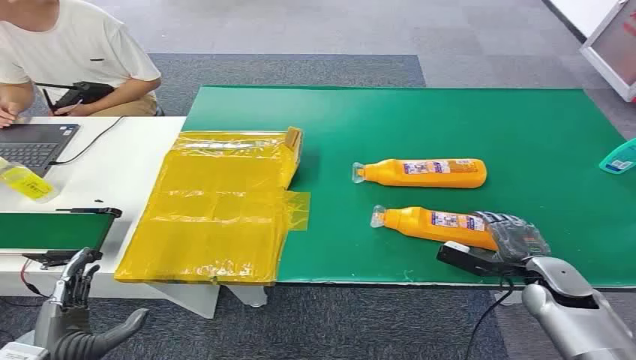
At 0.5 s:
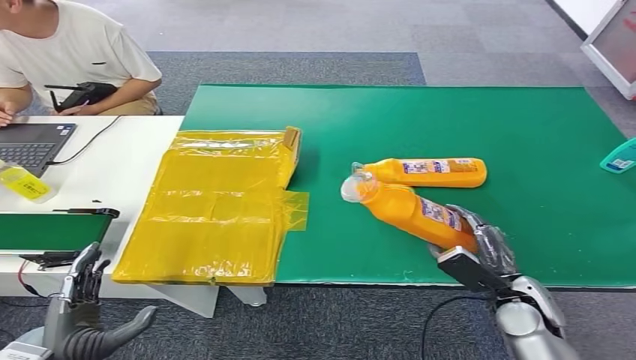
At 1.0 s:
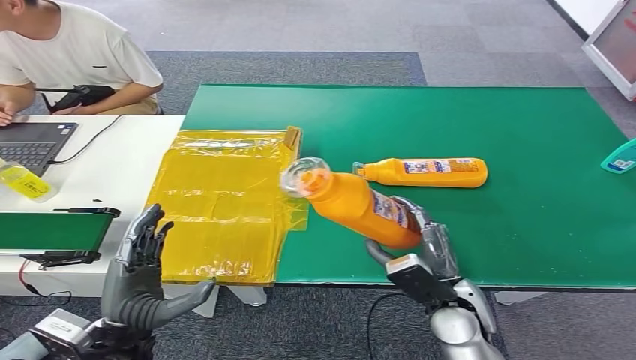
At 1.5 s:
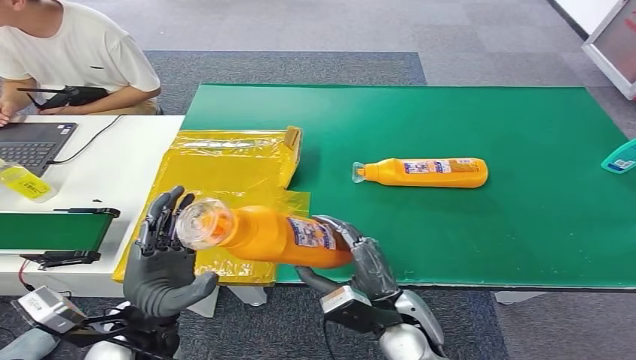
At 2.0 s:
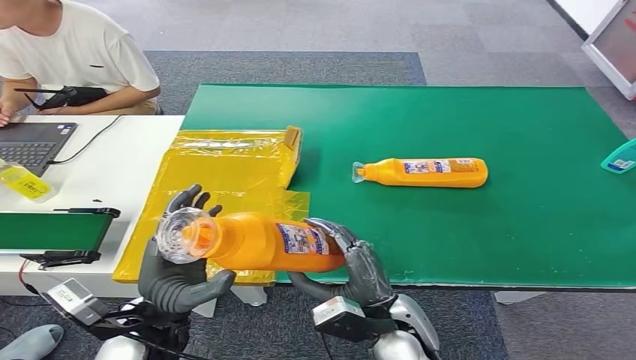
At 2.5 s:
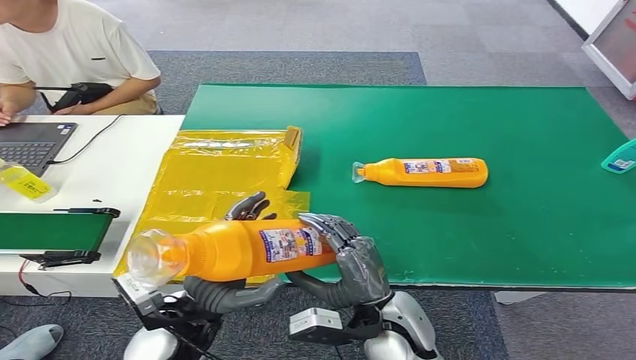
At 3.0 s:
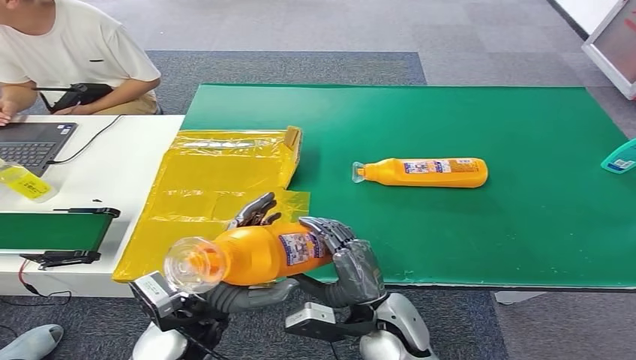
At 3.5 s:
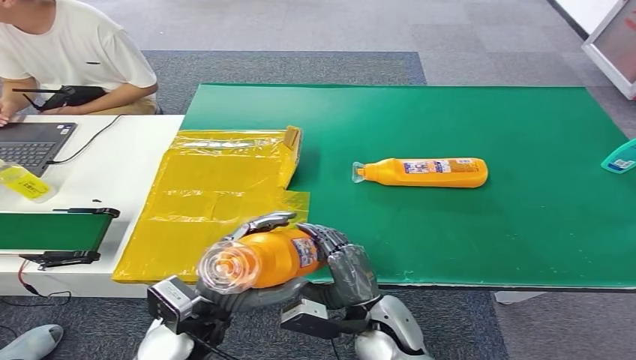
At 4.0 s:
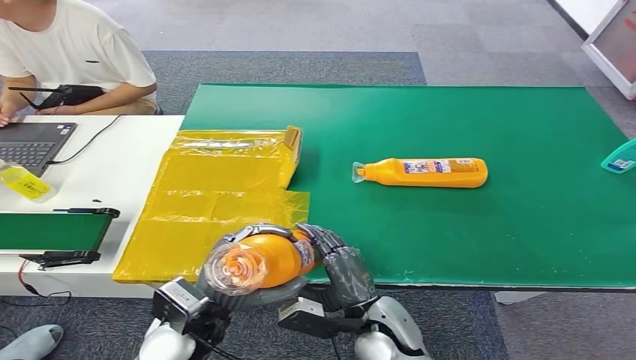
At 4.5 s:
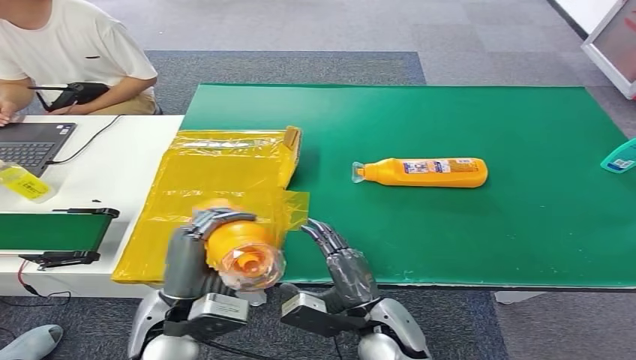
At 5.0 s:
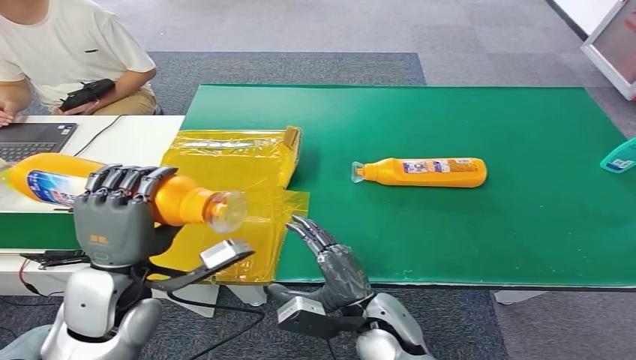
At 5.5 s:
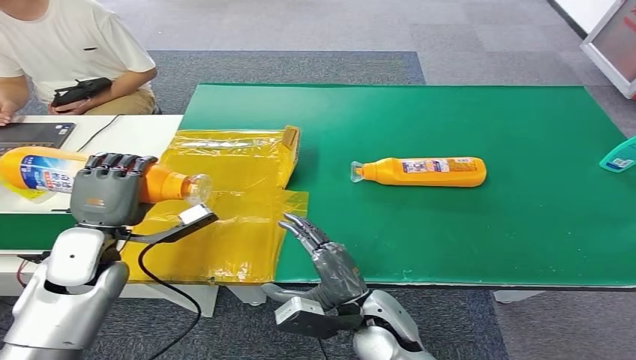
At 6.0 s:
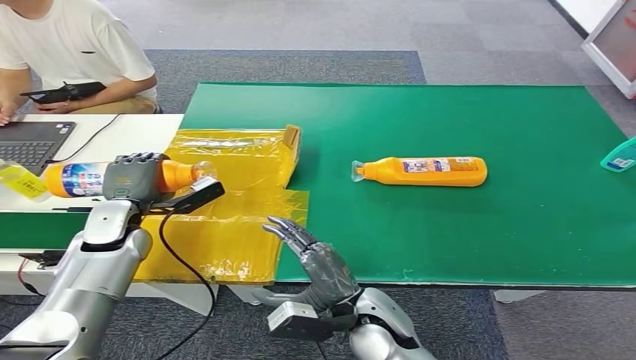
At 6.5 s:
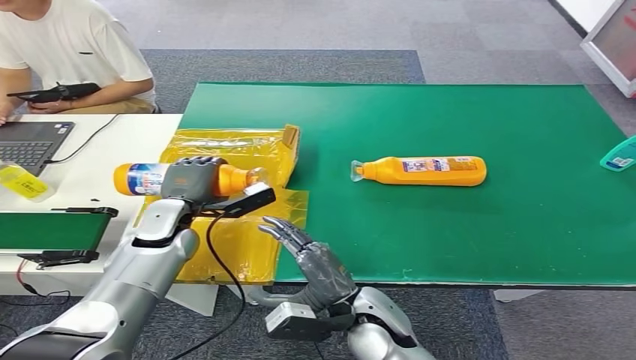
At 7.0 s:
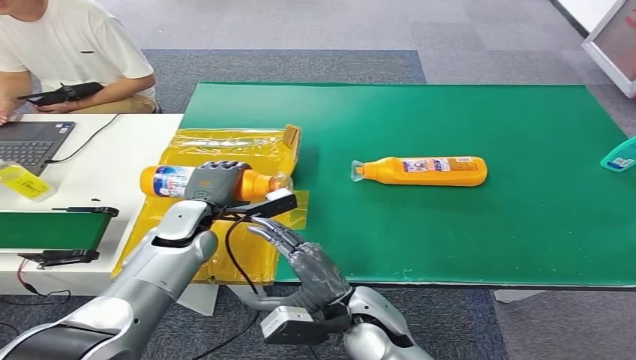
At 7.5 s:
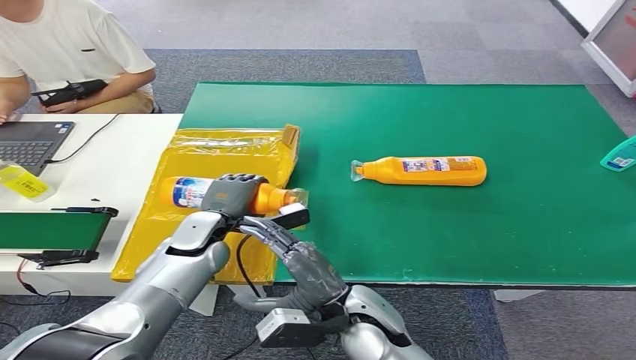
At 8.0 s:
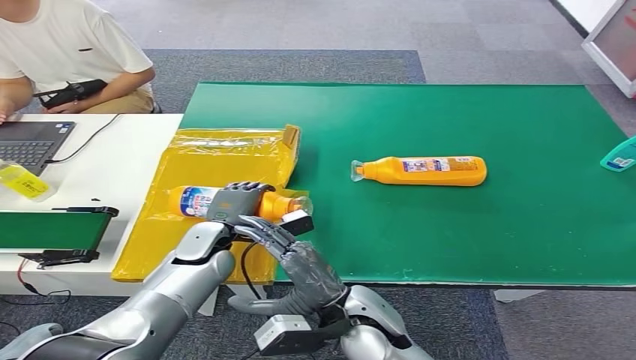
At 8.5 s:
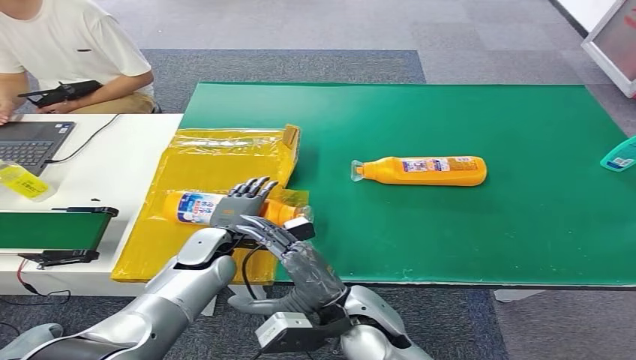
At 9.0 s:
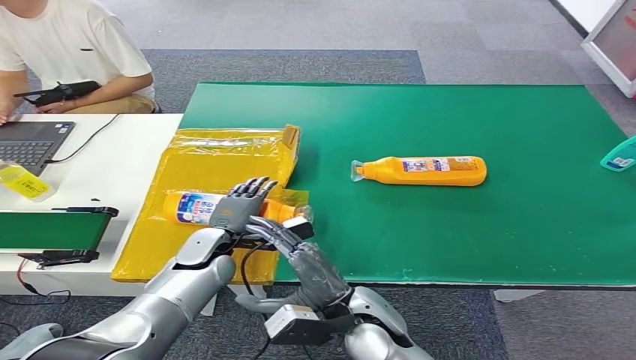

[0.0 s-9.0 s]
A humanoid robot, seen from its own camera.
Step, 0.0 to 2.5 s: Pick up the bottle from the table.
7.0 to 9.0 s: The left hand is displaced downward by some 5 cm.

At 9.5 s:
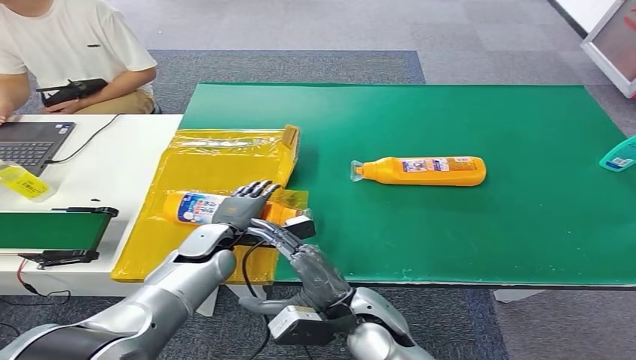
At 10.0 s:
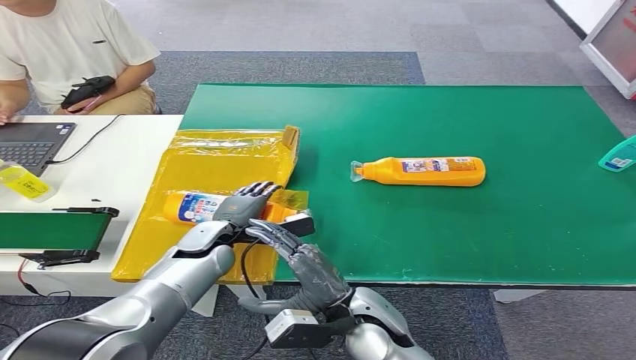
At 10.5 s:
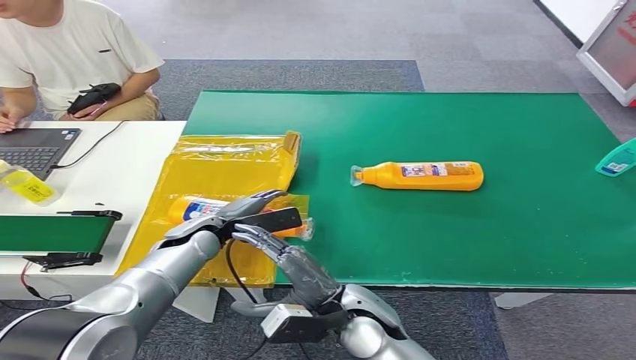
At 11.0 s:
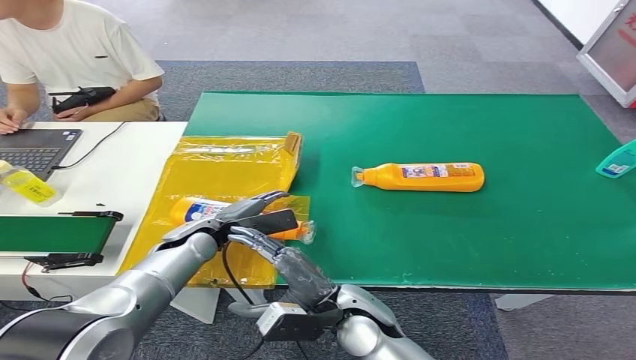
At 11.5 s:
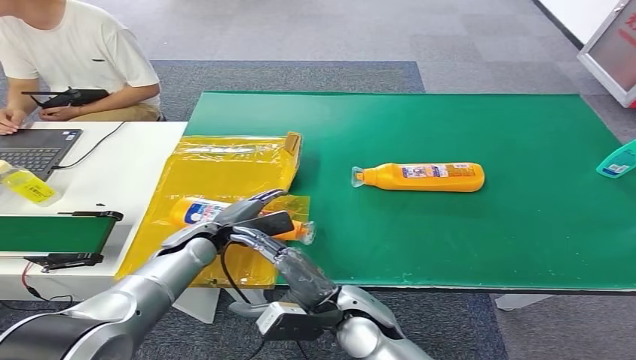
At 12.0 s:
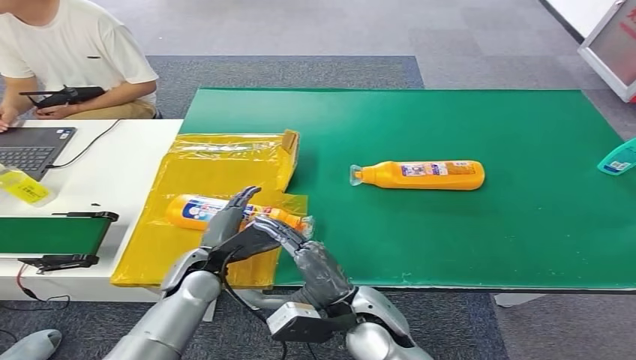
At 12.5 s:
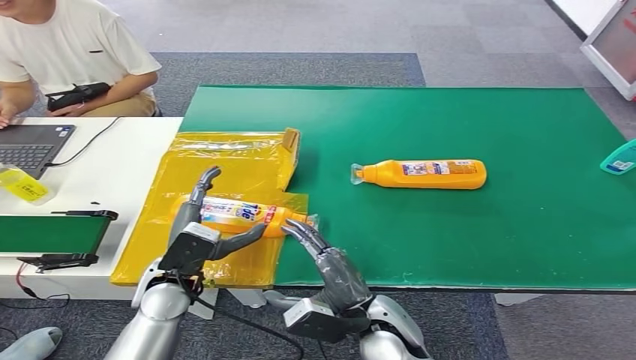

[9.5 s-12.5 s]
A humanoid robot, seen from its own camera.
Step, 9.5 to 12.5 s: Turn the bottle to the front side.

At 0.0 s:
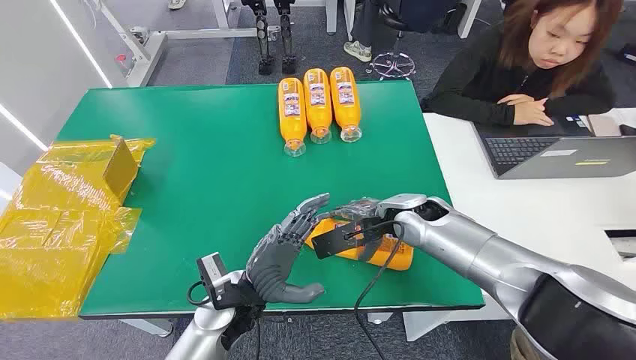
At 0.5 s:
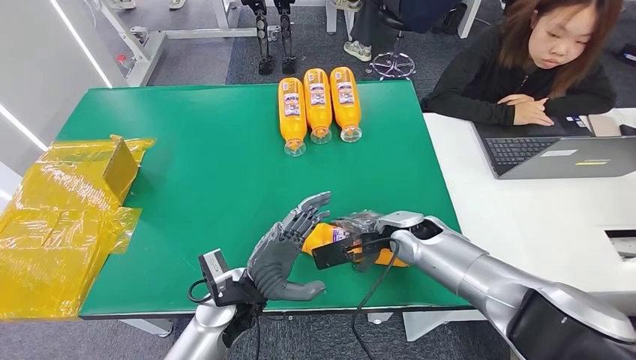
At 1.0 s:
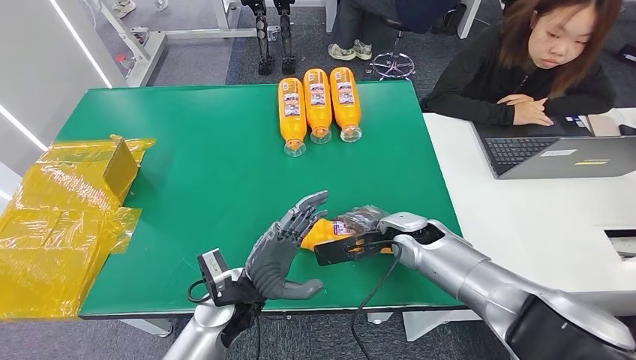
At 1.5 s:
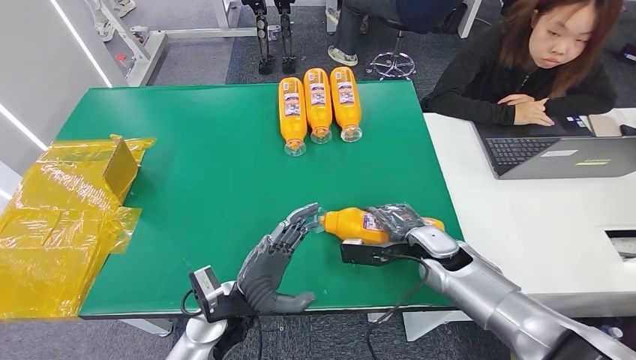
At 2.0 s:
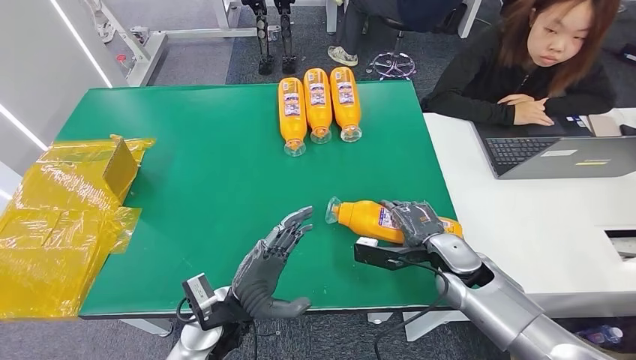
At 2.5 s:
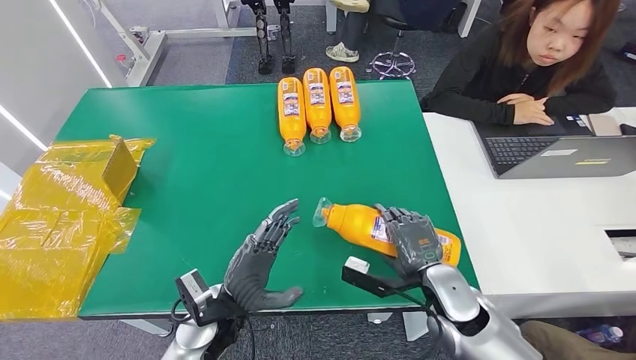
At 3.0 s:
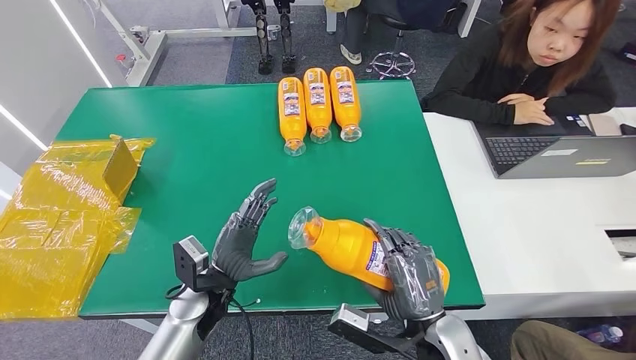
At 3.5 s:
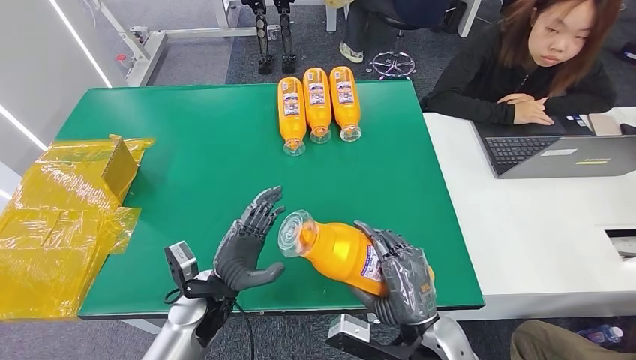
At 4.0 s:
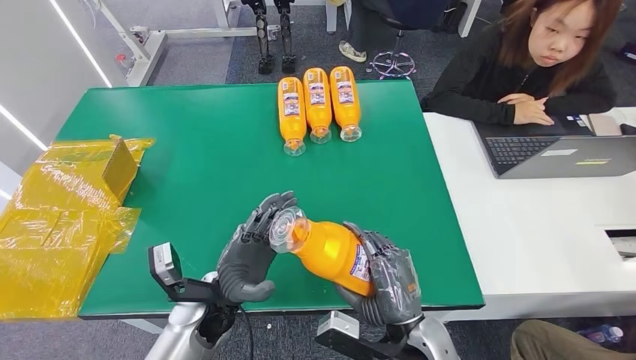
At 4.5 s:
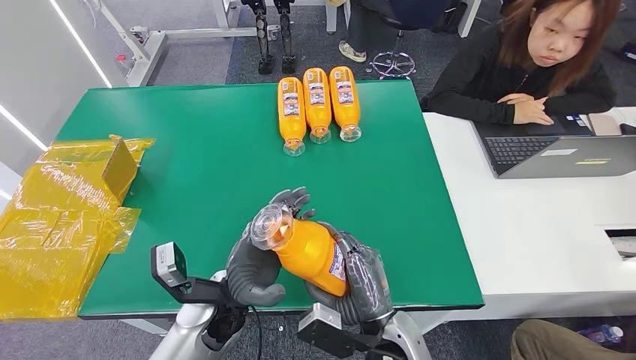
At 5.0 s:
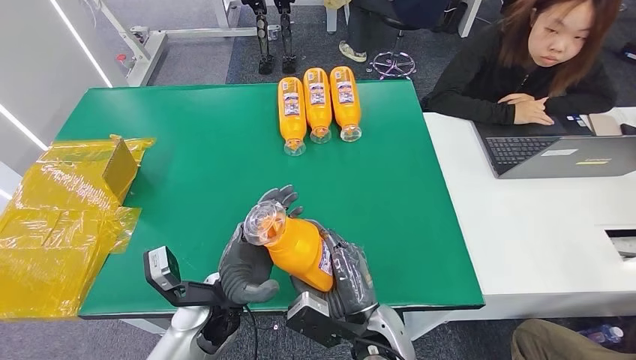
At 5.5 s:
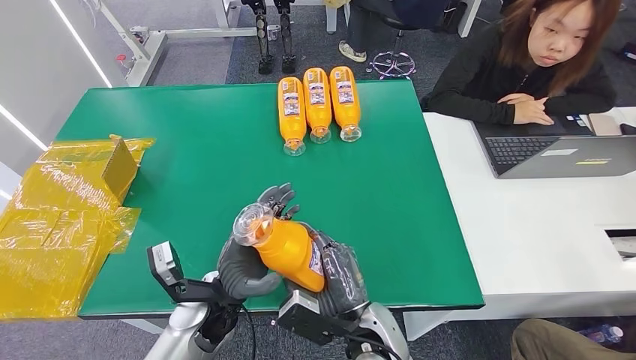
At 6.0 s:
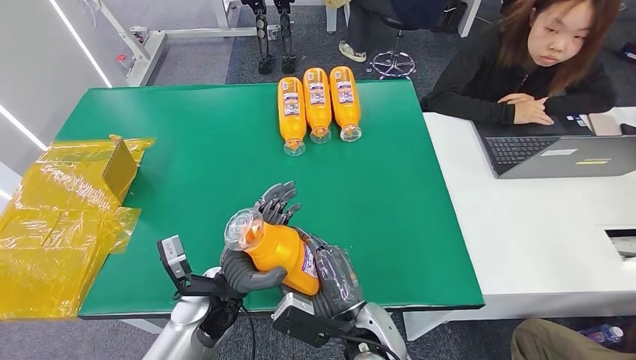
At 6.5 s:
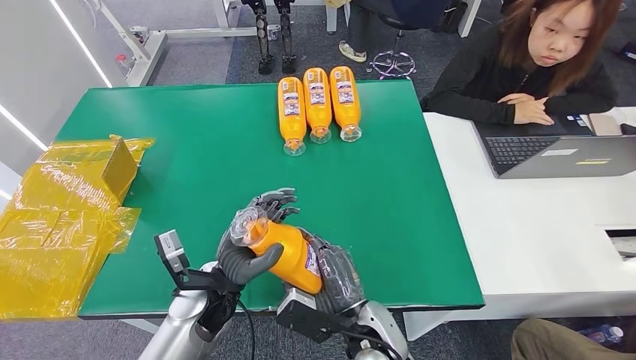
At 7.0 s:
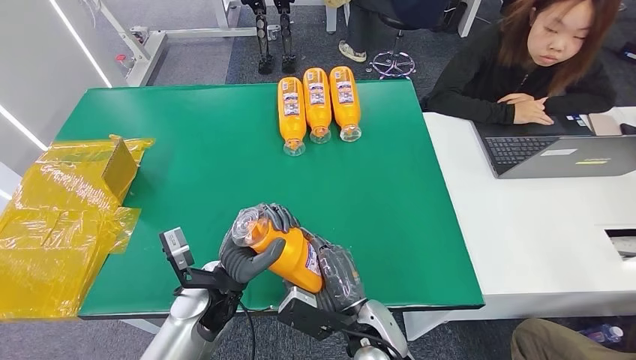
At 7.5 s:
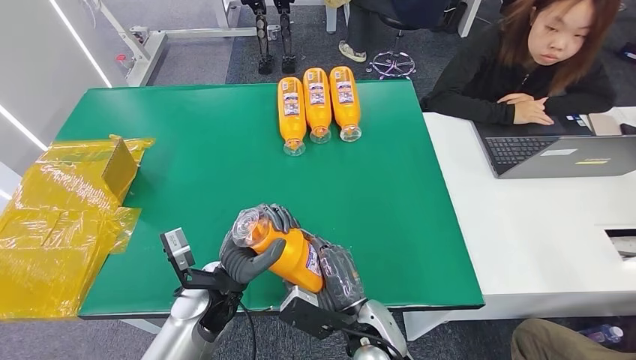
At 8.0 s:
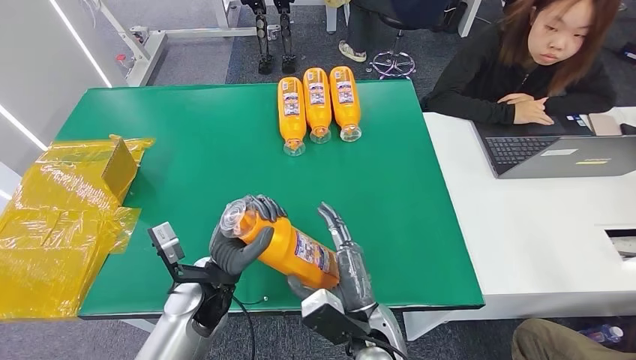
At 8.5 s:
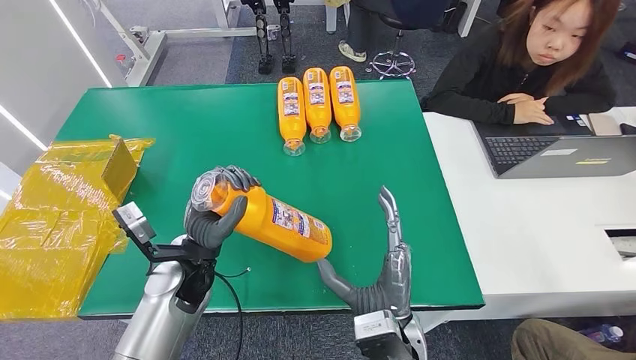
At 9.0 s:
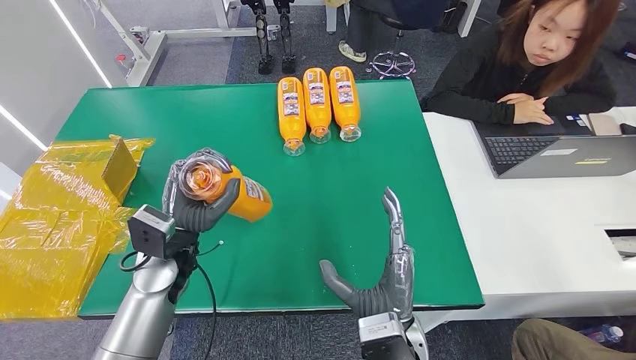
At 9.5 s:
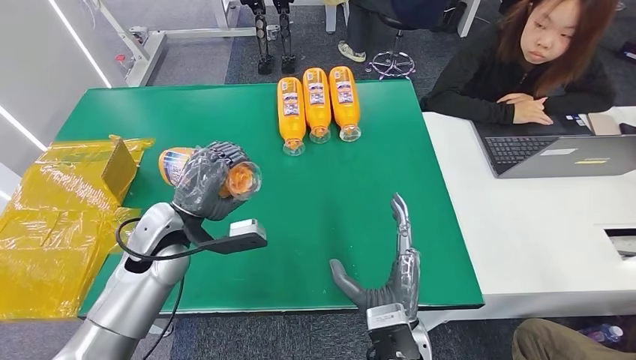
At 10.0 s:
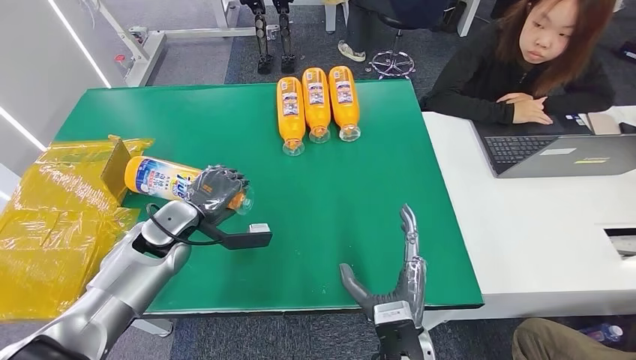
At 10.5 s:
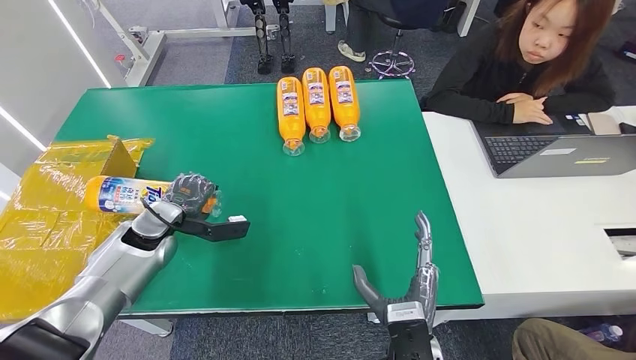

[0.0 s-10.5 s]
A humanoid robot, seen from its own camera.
Step, 0.0 to 5.0 s: Pick up the bottle from the table.
2.0 to 4.0 s: The right hand goes some 20 cm backward and to the left.
4.0 to 6.5 s: The right hand goes approximately 5 cm to the left.
6.5 to 8.5 s: The left hand moves roughly 5 cm.
8.5 to 10.5 s: The left hand shifts about 15 cm to the left and forward.
